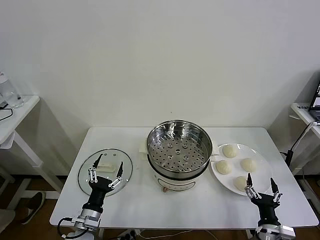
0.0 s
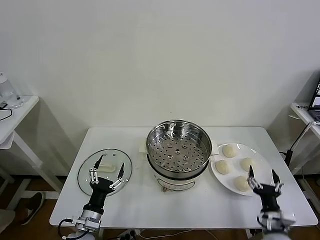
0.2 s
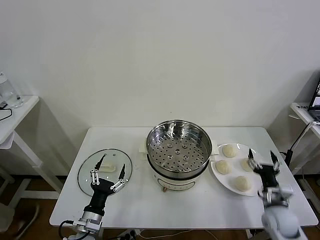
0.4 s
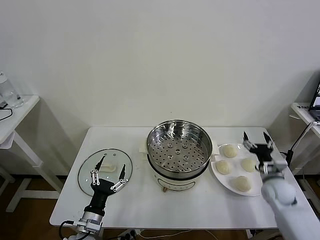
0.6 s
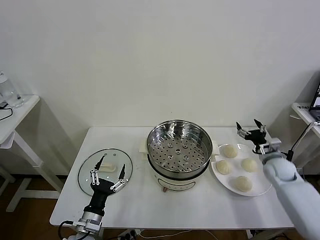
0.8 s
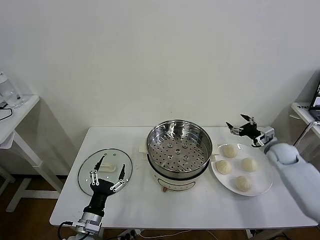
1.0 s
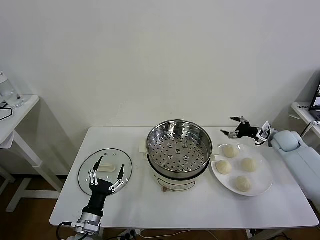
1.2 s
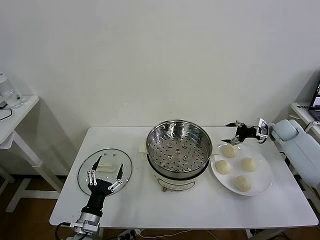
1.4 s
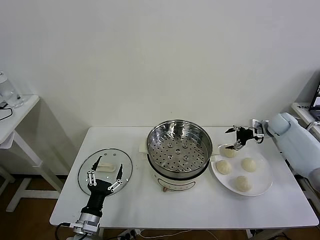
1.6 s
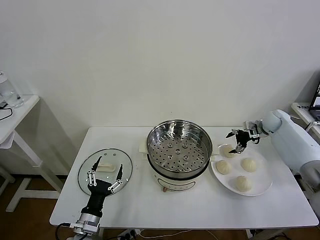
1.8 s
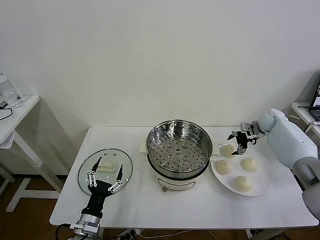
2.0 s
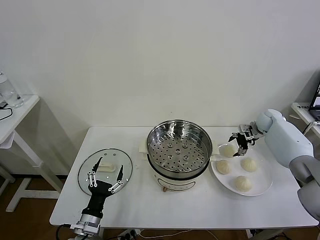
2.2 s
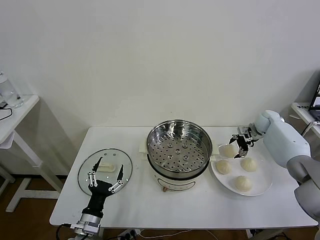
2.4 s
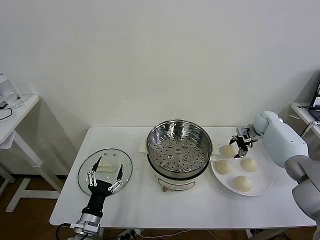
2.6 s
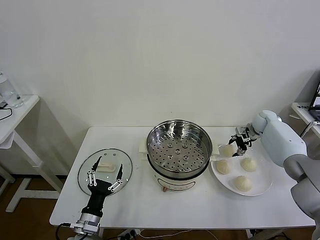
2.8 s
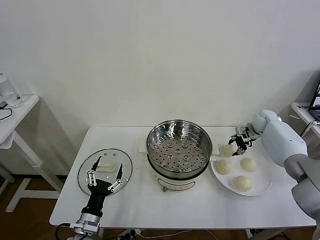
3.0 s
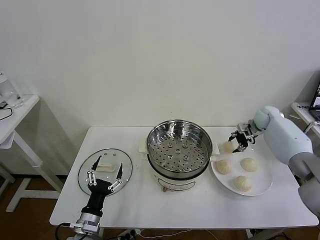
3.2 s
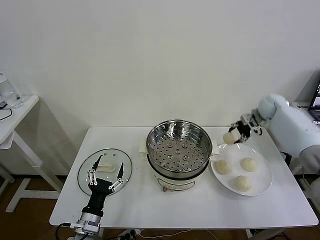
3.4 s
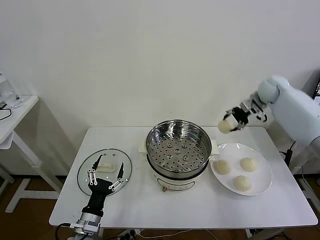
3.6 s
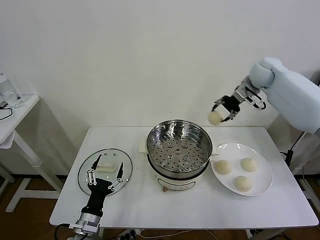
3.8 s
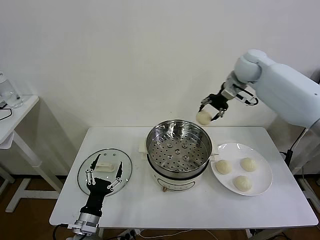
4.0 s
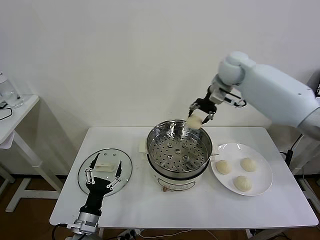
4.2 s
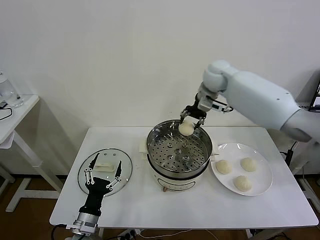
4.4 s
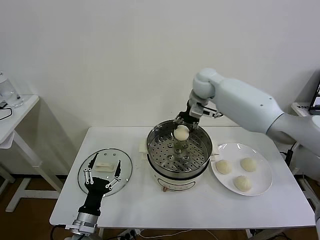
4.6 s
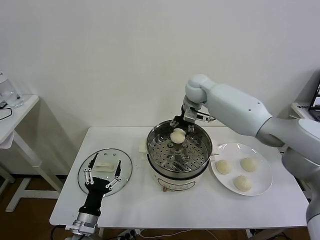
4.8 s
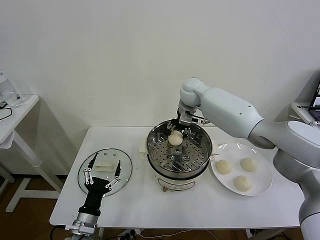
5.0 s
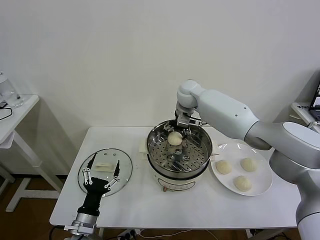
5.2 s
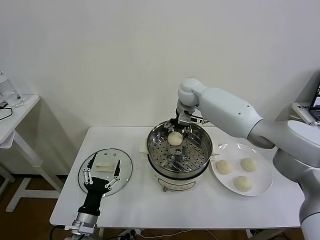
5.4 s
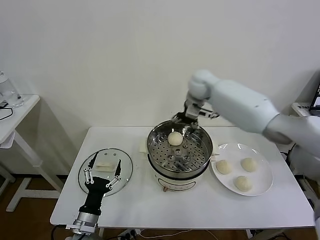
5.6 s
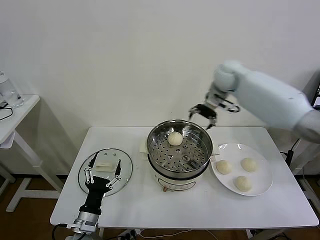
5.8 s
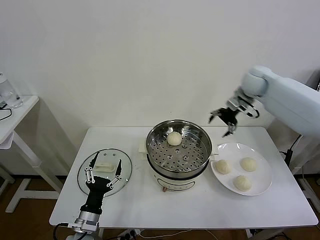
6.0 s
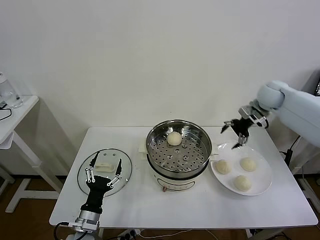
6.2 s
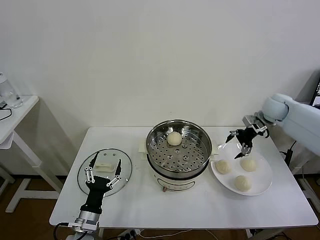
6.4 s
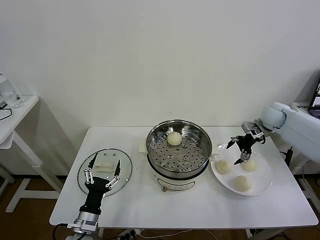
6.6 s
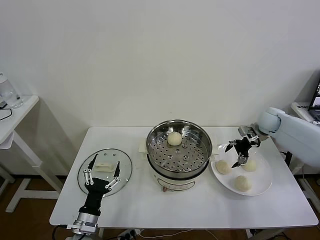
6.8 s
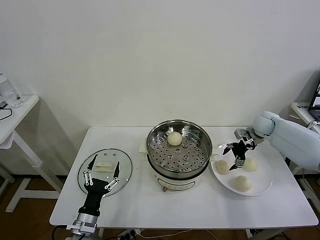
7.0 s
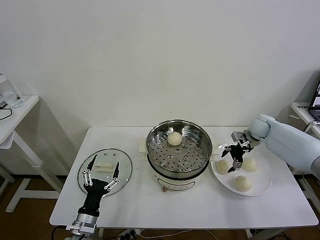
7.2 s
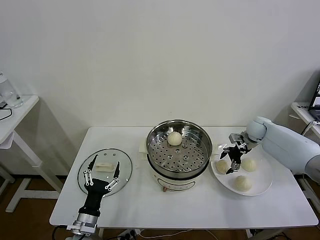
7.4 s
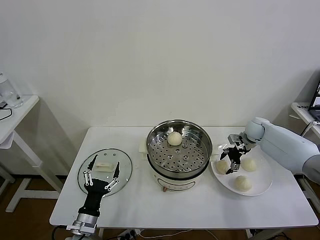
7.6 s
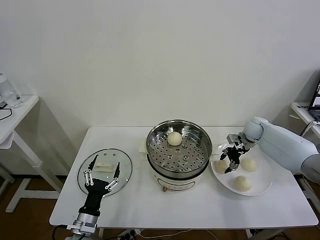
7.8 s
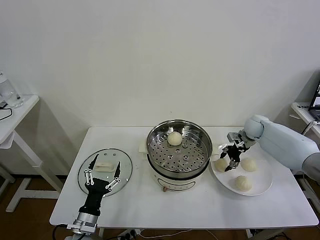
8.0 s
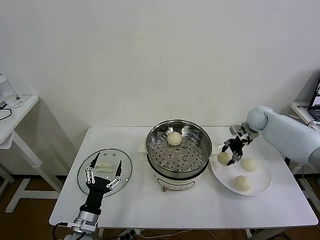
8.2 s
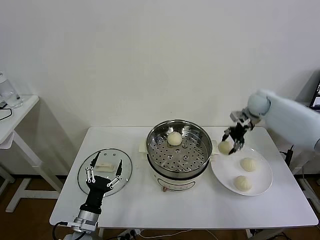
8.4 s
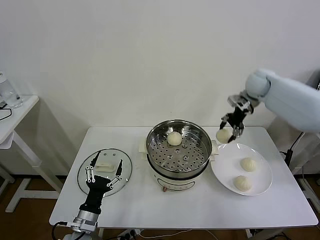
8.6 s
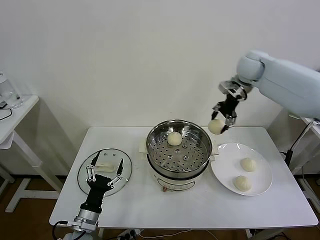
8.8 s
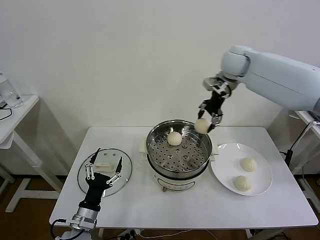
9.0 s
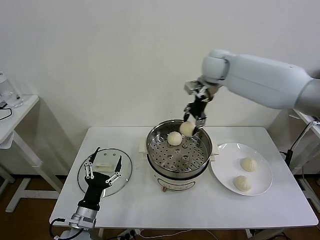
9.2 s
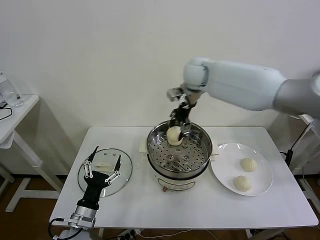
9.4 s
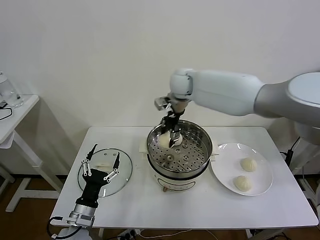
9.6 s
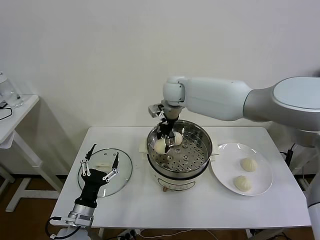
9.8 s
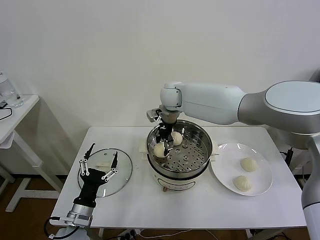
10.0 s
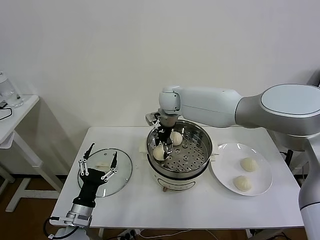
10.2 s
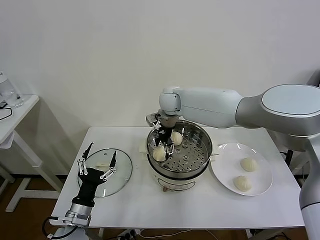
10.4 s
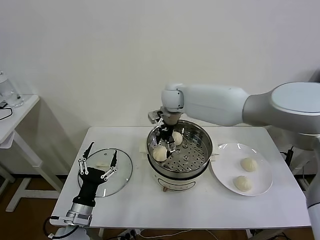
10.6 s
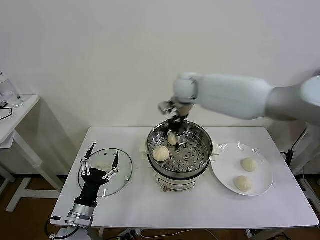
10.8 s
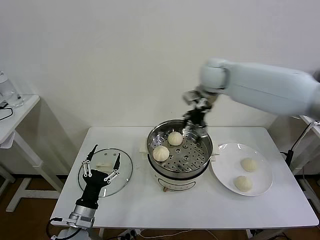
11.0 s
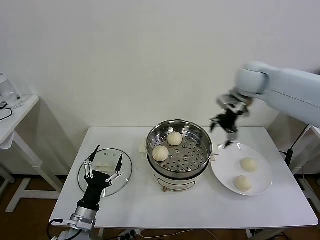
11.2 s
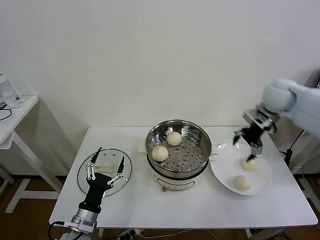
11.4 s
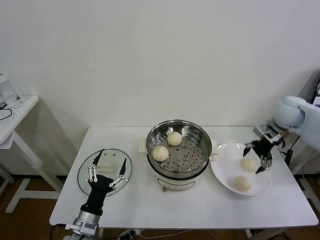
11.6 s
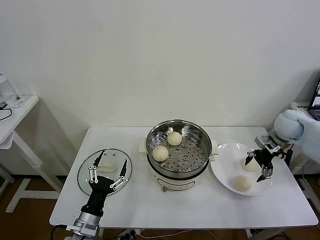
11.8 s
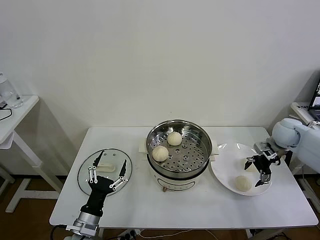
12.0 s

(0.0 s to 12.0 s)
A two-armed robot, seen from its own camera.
Task of the whole recording: take steamed baozi put them in steamer then cover it.
Step, 0.0 s - 2.8 s: Grasp the baozi in the plate with right gripper.
Step, 3.0 s - 5.2 s: Place the baozi on the steamer with right gripper.
Step, 5.6 s - 7.8 s: Grasp the baozi in the plate with right gripper.
Step, 8.0 s - 10.4 s: Place the baozi on the steamer with right gripper.
1.6 s - 3.0 s: The right gripper closes its fingers.
3.0 s - 4.4 s: The right gripper goes about 35 cm to the left and upward.
4.4 s - 6.0 s: The right gripper shifts about 25 cm to the right, and opens up.
6.0 s - 7.6 s: The right gripper shifts about 15 cm downward, and closes its fingers.
7.6 s - 9.0 s: The right gripper heads upward and to the left, covering some 35 cm.
9.0 s - 10.4 s: The right gripper shifts approximately 15 cm to the left and downward, and opens up.
10.4 s - 12.0 s: The right gripper travels to the right by some 40 cm.

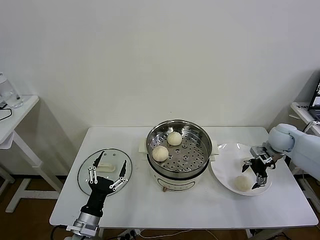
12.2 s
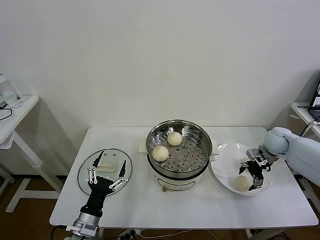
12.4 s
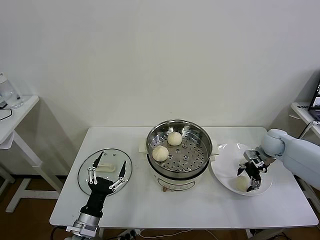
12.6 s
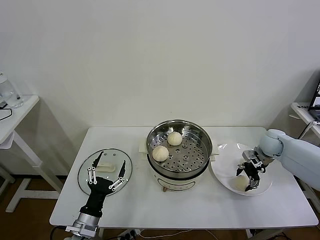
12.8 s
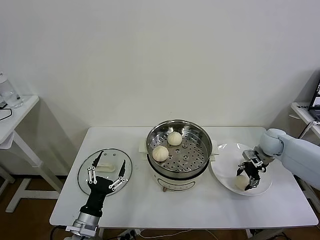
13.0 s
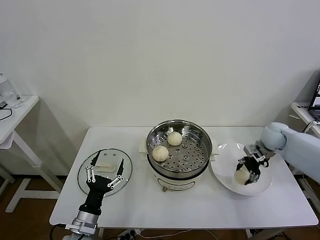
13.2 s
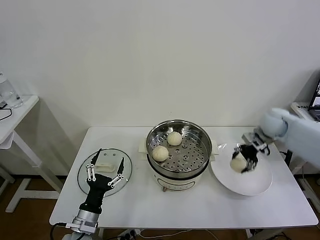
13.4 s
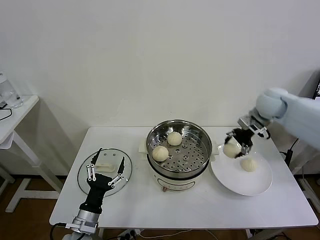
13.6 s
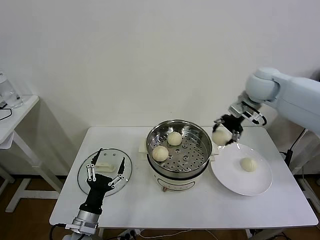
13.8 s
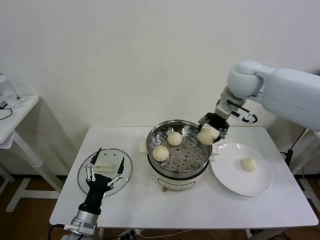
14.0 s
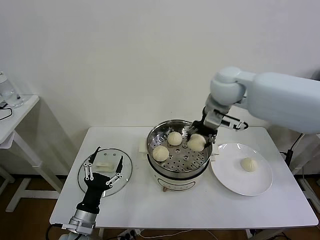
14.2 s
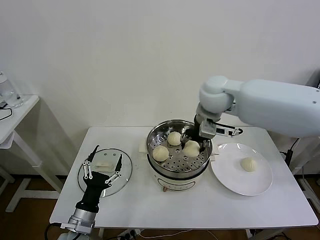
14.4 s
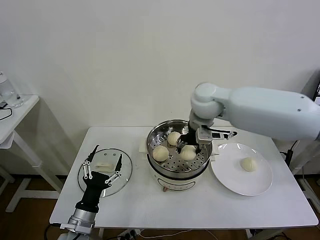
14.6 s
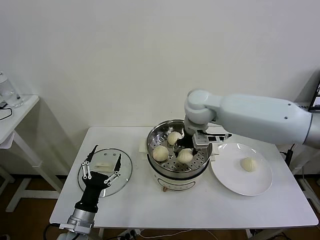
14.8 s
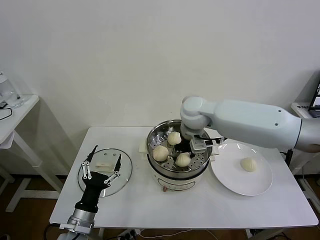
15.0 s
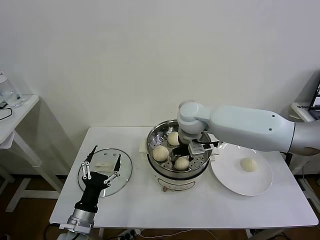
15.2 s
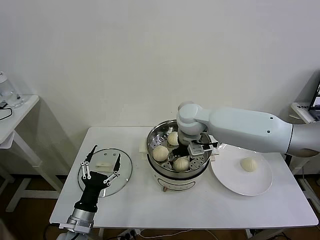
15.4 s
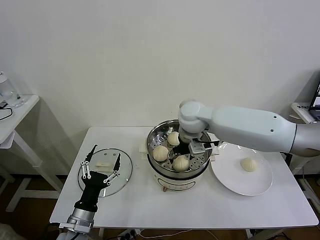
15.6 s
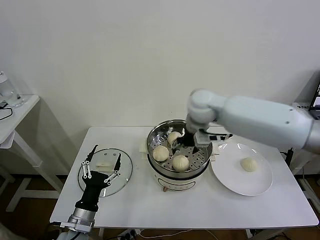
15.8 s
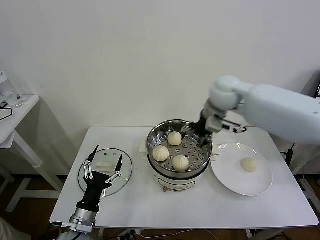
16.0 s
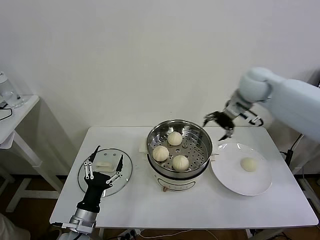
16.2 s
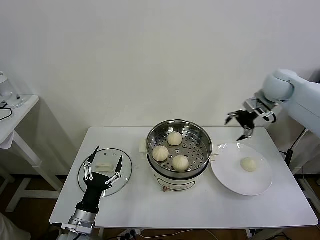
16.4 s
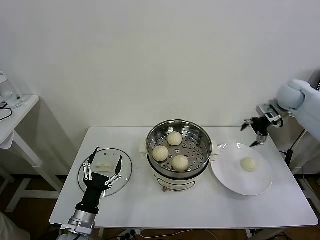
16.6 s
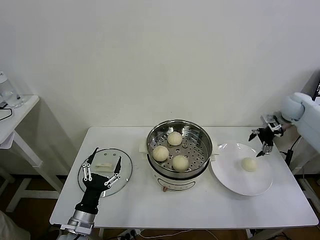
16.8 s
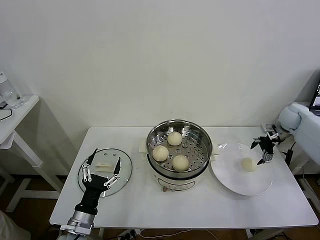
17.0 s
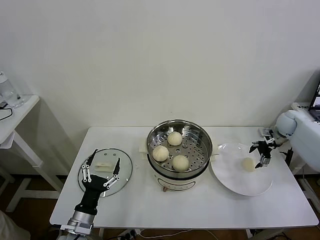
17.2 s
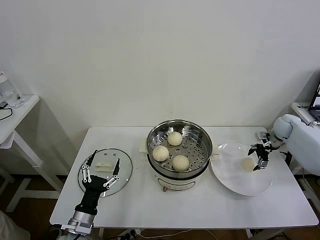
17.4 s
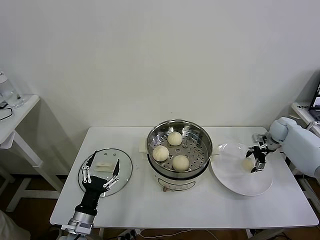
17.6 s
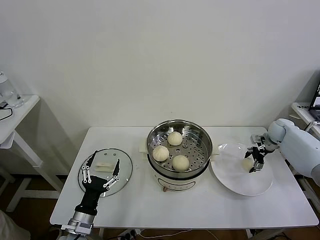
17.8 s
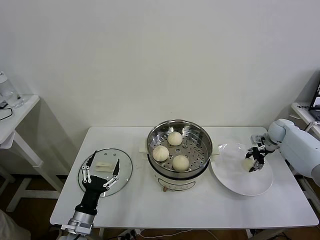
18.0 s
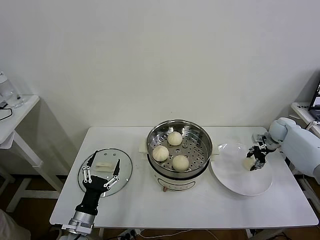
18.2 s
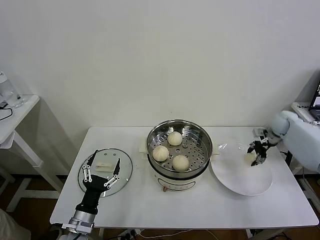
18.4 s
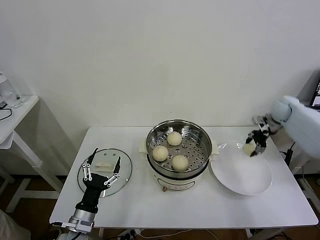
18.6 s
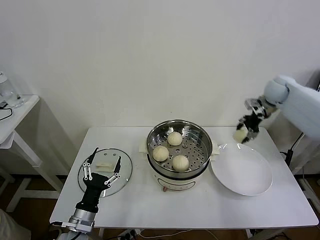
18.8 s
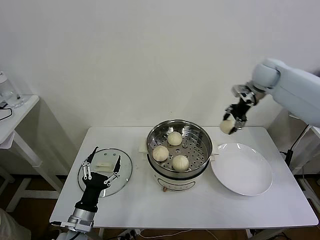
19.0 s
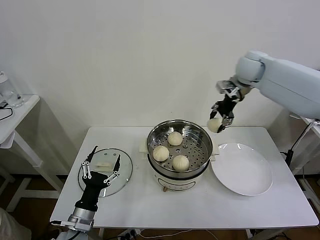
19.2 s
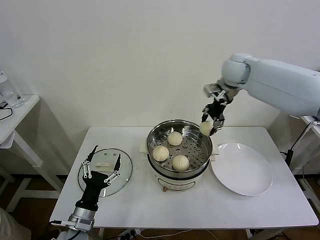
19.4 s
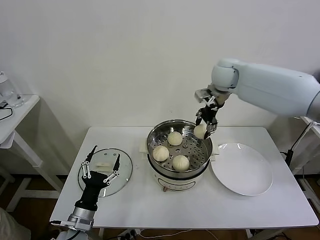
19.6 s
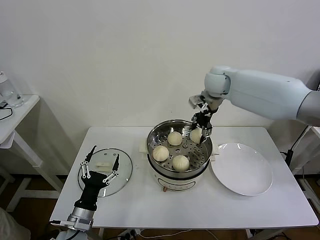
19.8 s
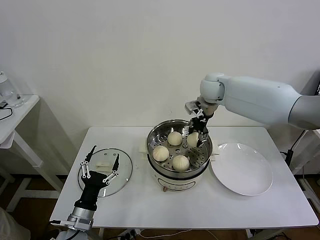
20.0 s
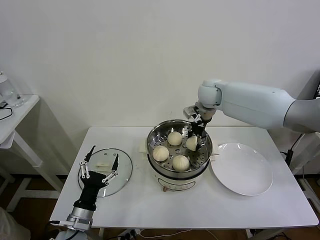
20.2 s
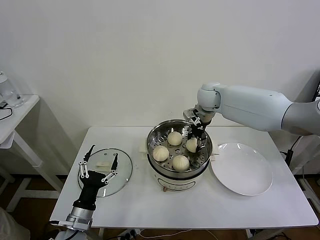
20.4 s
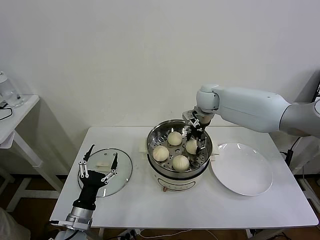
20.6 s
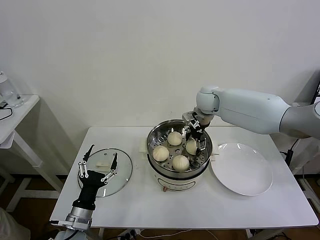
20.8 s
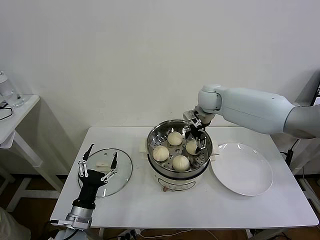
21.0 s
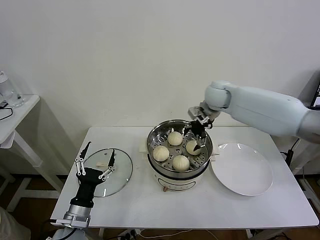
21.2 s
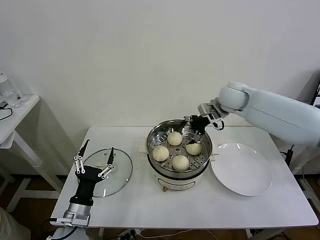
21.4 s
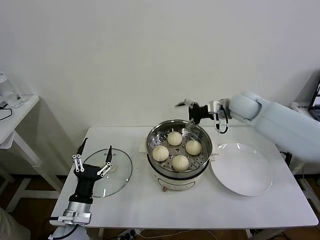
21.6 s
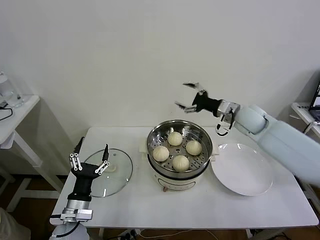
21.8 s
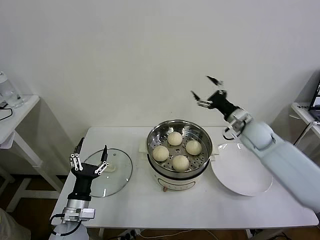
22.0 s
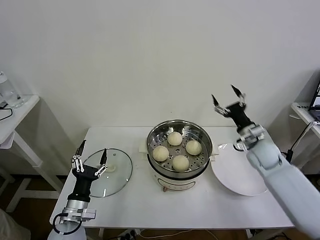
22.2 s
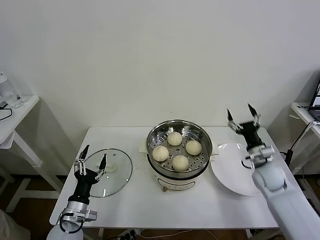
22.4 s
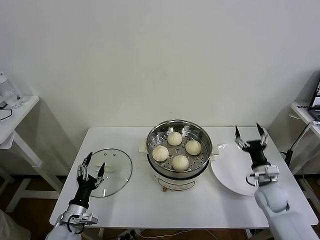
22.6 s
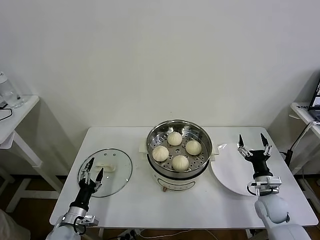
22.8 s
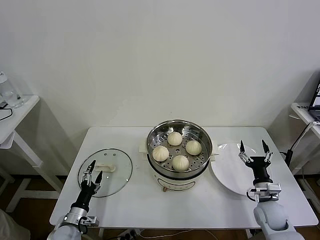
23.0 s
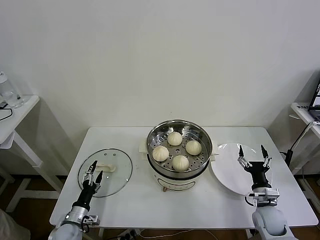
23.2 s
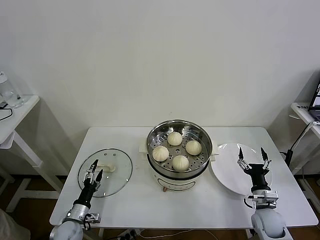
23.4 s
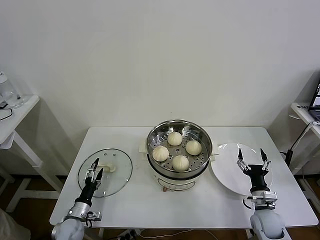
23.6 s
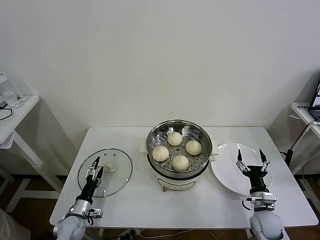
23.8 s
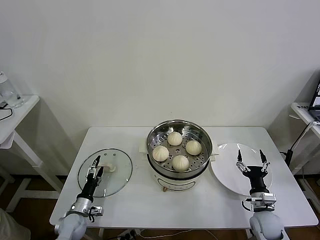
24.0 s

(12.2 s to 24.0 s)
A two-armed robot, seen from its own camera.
Task of the whole recording: take steamed baozi put them in steamer then cover it.
Step, 13.2 s - 15.4 s: Place the baozi on the steamer with right gripper.
Step, 15.6 s - 18.0 s: Grasp the baozi in the plate with right gripper.
Step, 18.2 s - 21.0 s: Place the baozi on the steamer with right gripper.
12.2 s - 13.6 s: The right gripper travels upward and to the left by about 20 cm, and closes.
13.6 s - 15.2 s: The right gripper moves to the left, roughly 25 cm, and opens its fingers.
15.2 s - 16.6 s: The right gripper goes roughly 40 cm to the right.
16.6 s - 18.2 s: The right gripper is displaced downward by approximately 15 cm, and closes up.
18.2 s - 19.6 s: The right gripper goes about 35 cm to the left and upward.
19.6 s - 21.0 s: The right gripper travels downward by approximately 5 cm, and opens.
21.0 s - 22.6 s: The left gripper is displaced downward by about 5 cm. Meanwhile the right gripper travels downward, backward and to the right by about 40 cm.
22.6 s - 24.0 s: The left gripper travels downward and forward by roughly 10 cm. Meanwhile the right gripper moves backward and downward, roughly 10 cm.
